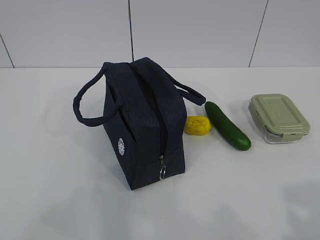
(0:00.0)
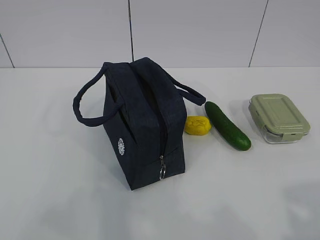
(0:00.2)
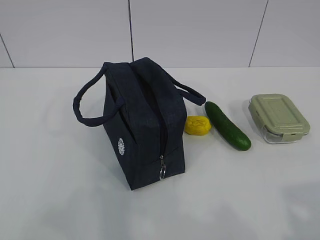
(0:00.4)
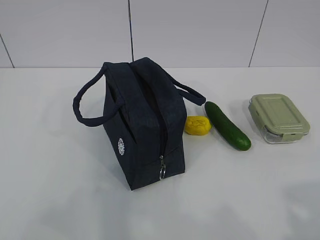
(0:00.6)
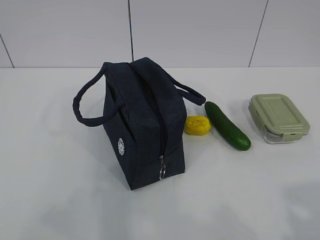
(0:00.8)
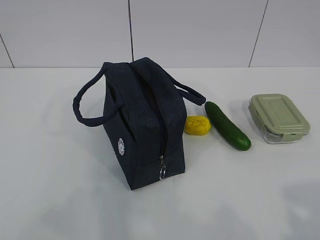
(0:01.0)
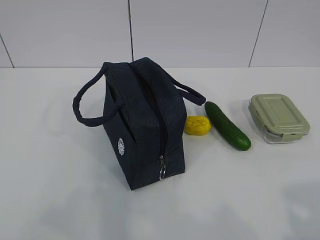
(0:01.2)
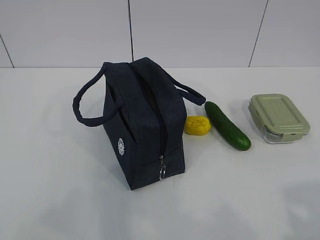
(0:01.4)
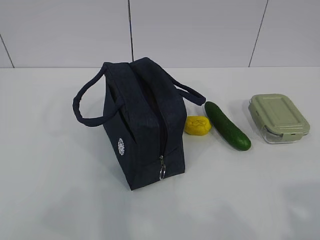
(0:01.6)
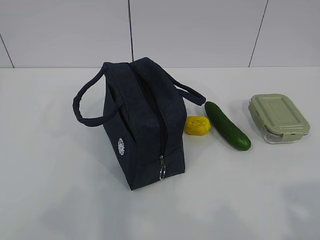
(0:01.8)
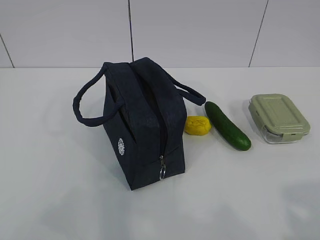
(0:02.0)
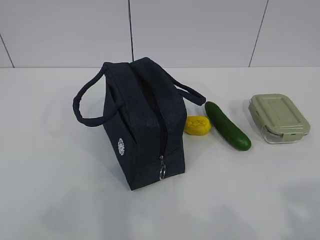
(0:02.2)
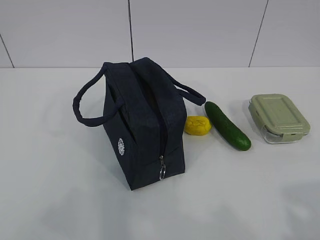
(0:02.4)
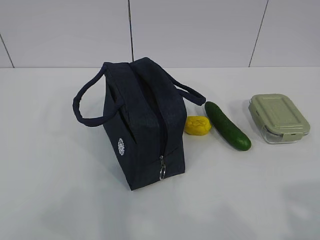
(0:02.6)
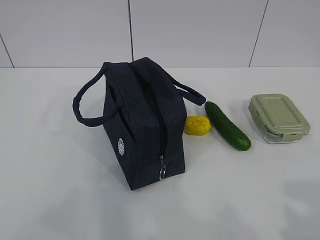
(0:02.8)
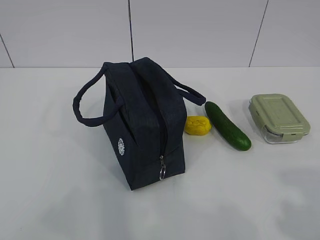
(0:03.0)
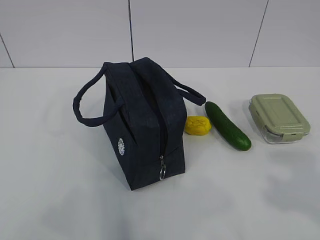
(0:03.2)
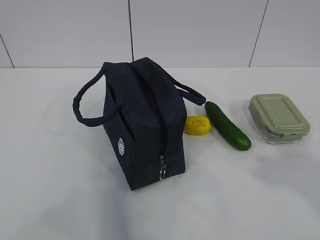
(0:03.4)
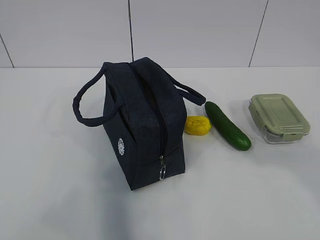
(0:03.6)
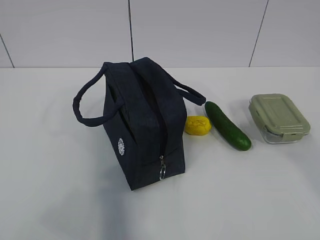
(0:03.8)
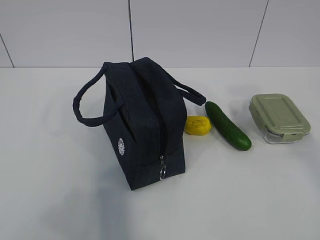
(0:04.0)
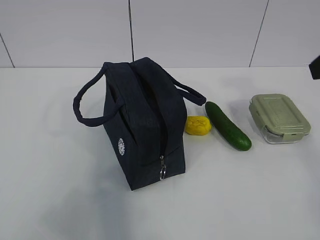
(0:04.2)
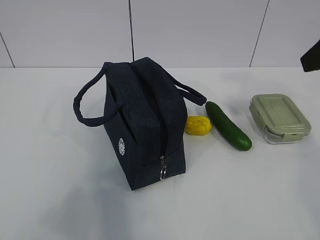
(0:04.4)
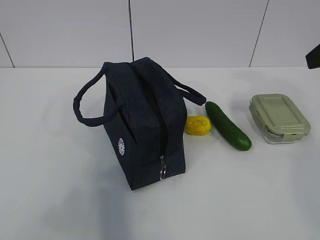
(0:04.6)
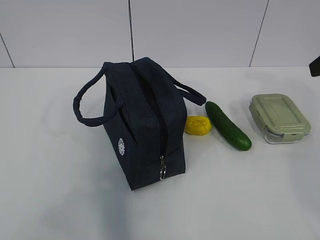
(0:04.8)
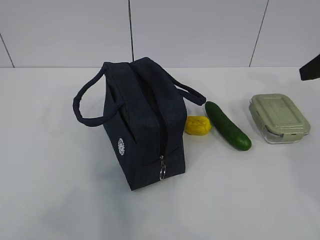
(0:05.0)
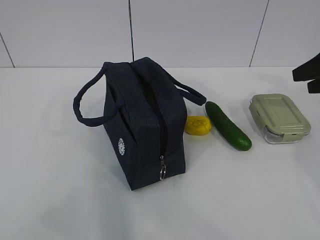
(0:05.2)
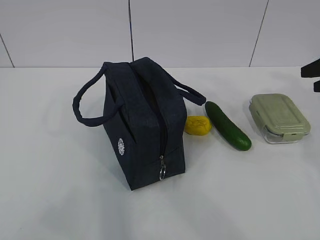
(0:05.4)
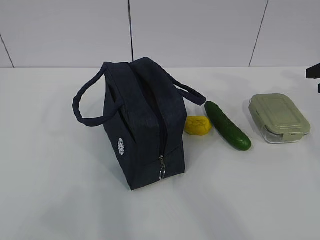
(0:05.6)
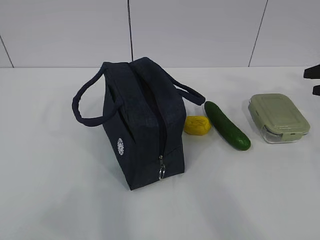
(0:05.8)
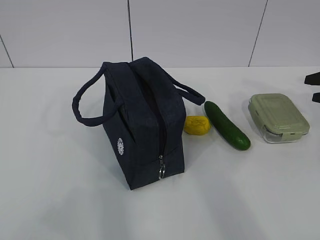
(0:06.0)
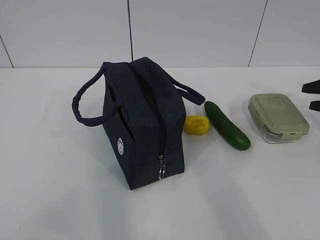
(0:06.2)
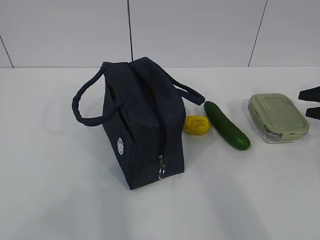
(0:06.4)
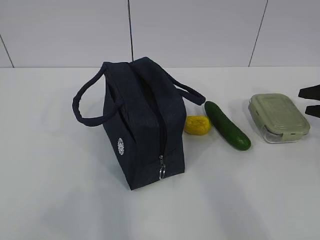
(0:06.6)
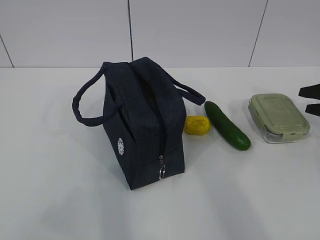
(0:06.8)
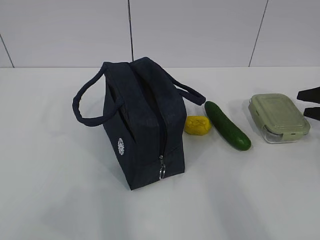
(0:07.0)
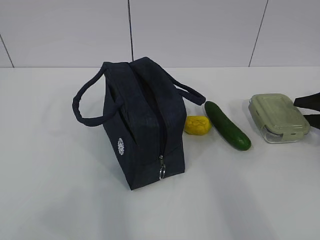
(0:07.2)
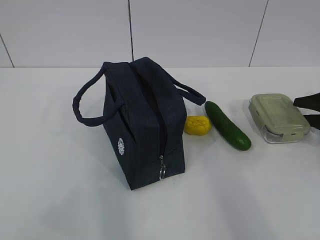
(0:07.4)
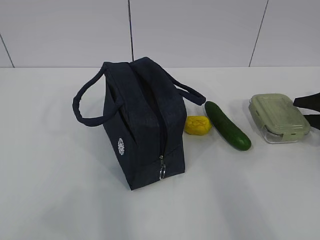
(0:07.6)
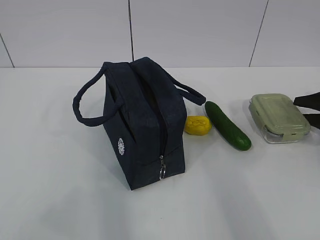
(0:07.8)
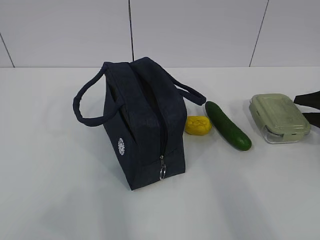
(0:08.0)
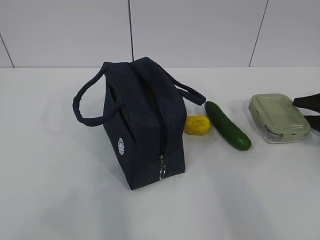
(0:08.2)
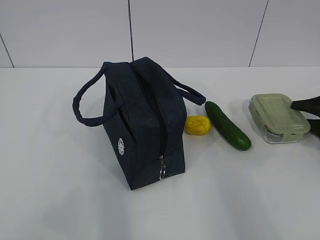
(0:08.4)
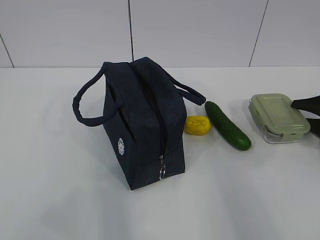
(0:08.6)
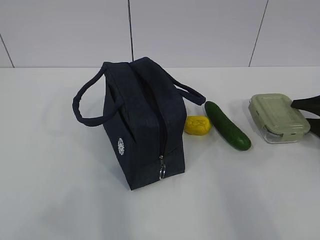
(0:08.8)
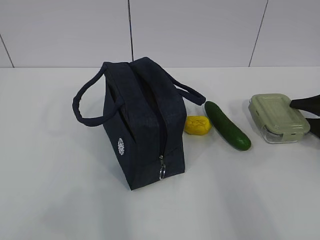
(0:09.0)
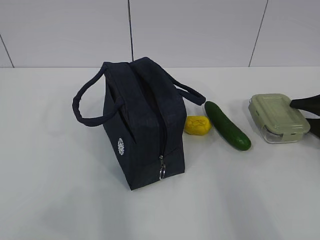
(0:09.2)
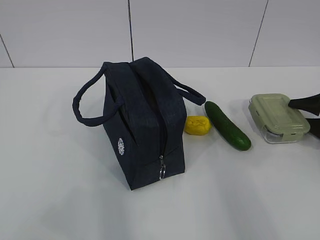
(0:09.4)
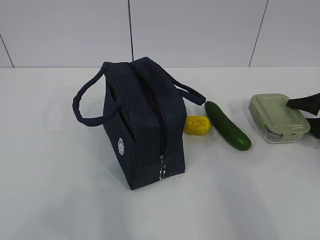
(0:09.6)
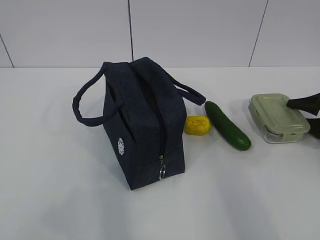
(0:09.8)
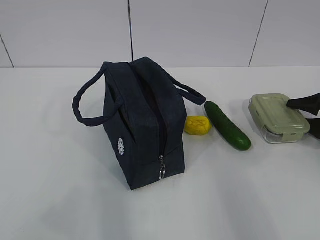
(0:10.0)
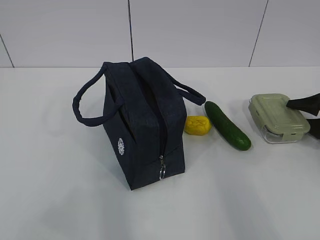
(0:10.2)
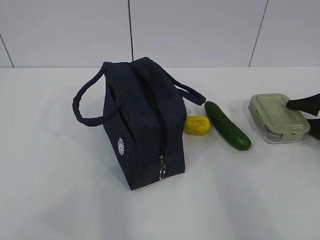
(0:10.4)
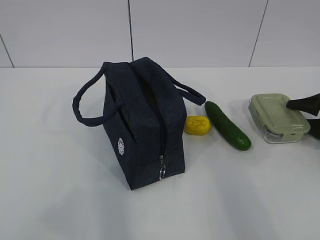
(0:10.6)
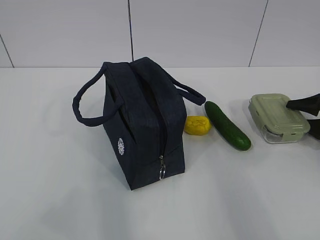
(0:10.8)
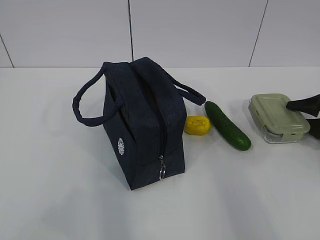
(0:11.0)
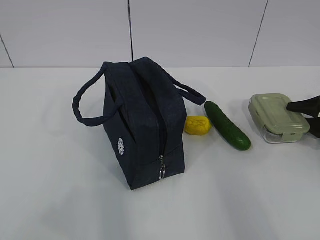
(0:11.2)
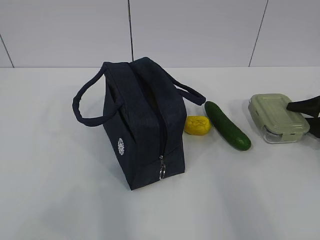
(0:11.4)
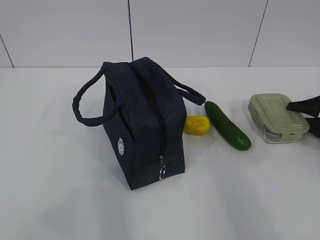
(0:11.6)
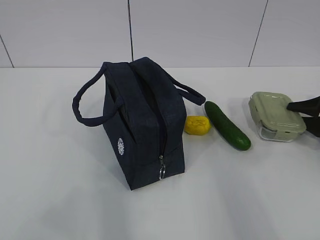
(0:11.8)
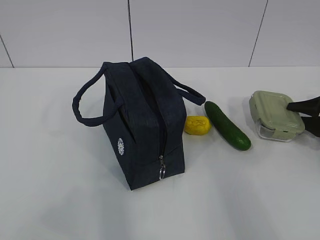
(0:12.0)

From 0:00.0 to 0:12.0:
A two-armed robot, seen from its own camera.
From 0:03.0 to 0:04.4: The right gripper heads forward and upward, covering roughly 25 cm.
From 0:04.4 to 0:06.0: The right gripper shifts approximately 30 cm downward, to the right and forward.
From 0:06.0 to 0:07.6: The right gripper heads downward, covering approximately 5 cm.
From 0:09.0 to 0:10.4: The two grippers keep their place.
From 0:10.4 to 0:12.0: Neither gripper changes place.

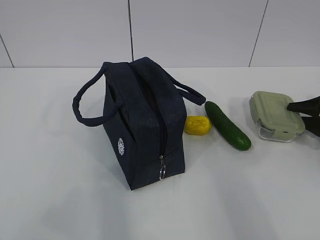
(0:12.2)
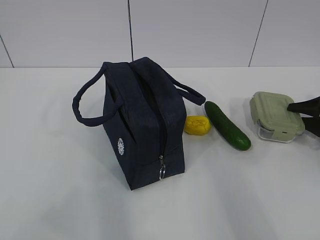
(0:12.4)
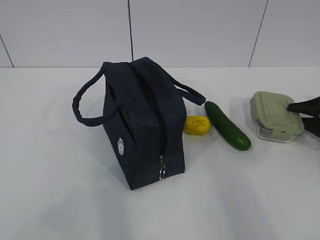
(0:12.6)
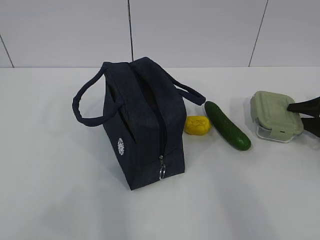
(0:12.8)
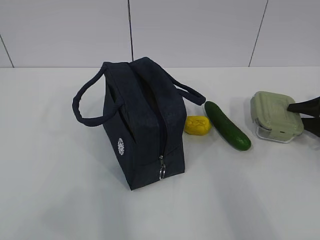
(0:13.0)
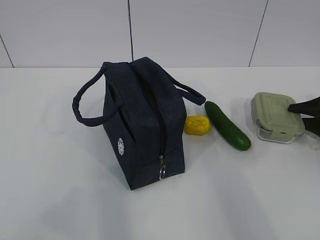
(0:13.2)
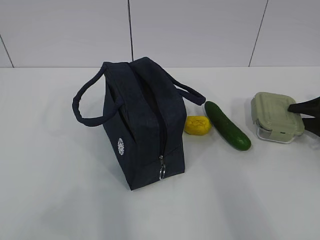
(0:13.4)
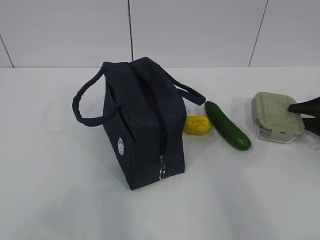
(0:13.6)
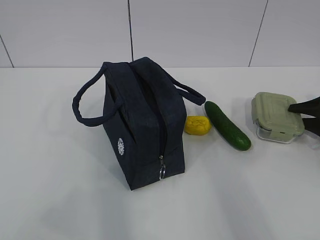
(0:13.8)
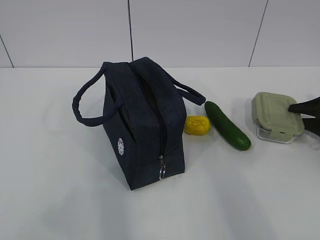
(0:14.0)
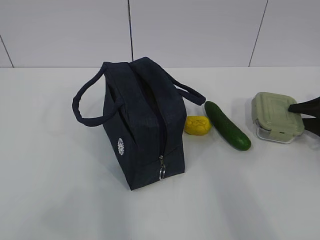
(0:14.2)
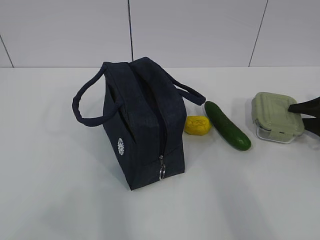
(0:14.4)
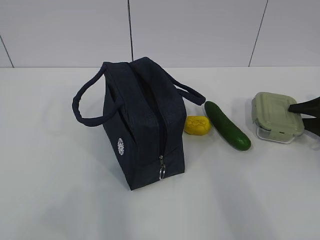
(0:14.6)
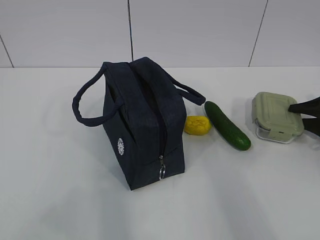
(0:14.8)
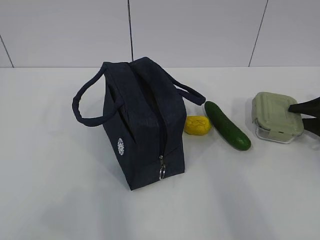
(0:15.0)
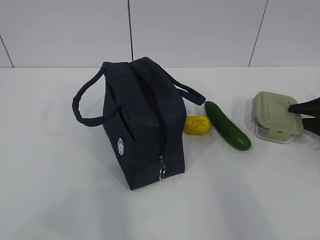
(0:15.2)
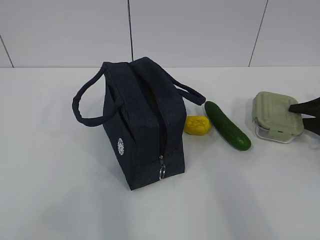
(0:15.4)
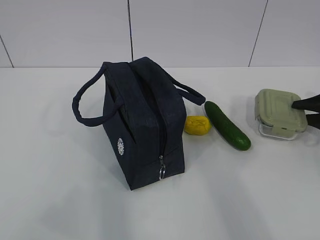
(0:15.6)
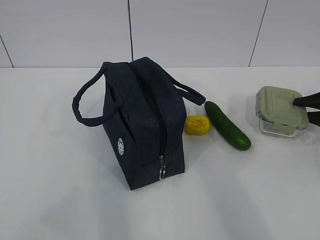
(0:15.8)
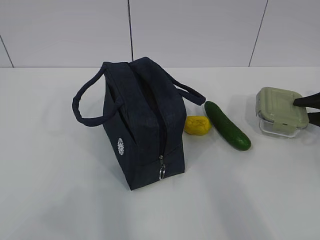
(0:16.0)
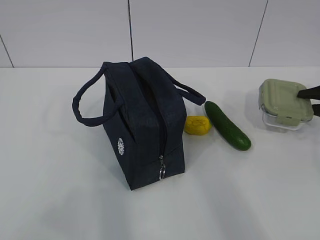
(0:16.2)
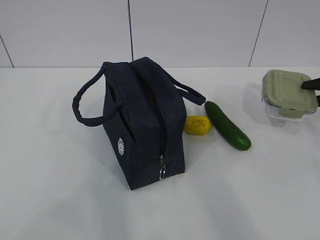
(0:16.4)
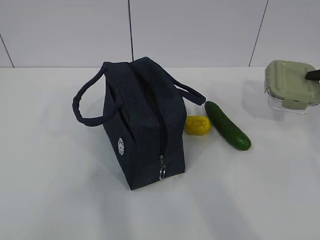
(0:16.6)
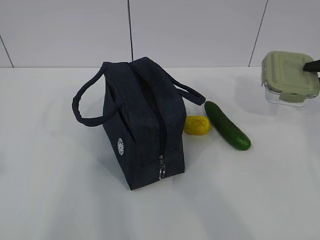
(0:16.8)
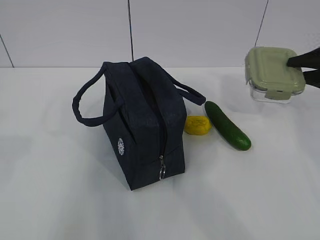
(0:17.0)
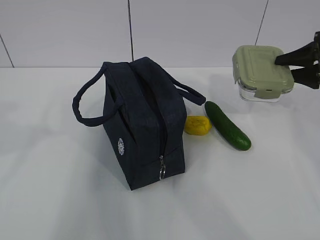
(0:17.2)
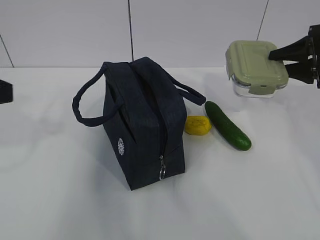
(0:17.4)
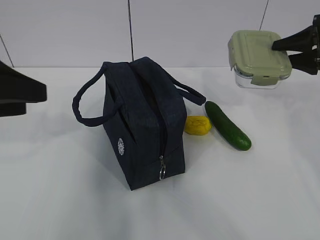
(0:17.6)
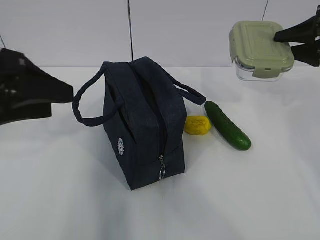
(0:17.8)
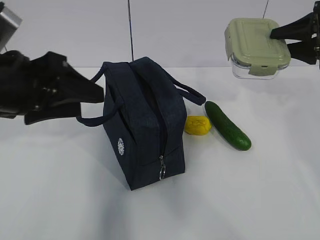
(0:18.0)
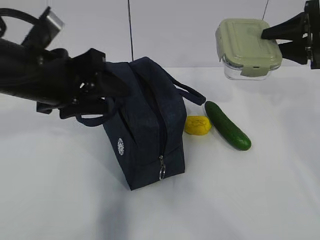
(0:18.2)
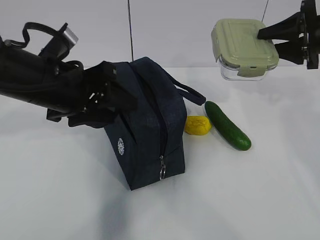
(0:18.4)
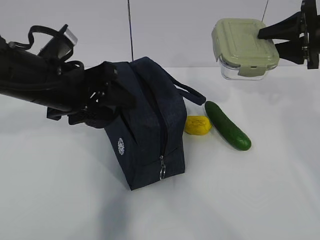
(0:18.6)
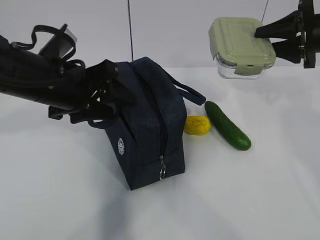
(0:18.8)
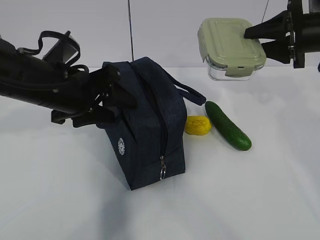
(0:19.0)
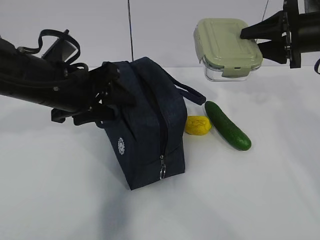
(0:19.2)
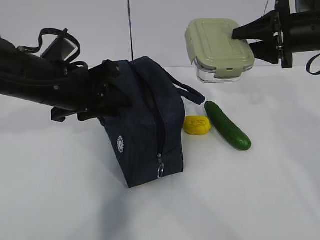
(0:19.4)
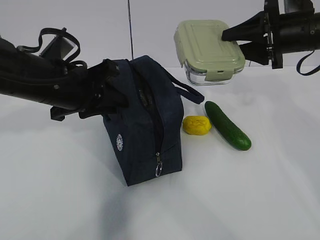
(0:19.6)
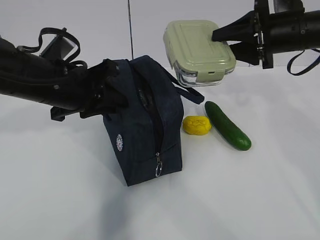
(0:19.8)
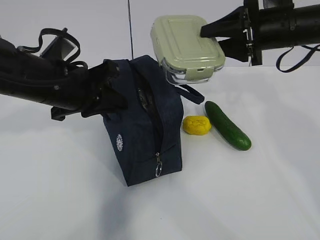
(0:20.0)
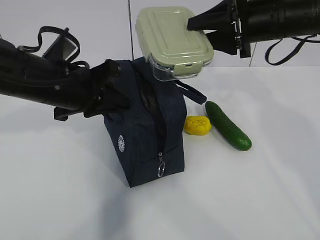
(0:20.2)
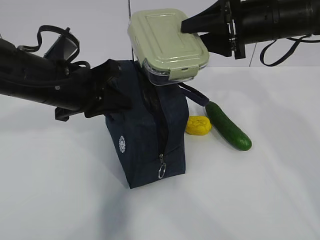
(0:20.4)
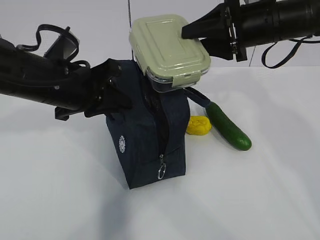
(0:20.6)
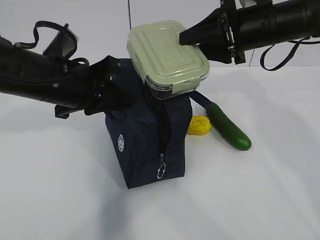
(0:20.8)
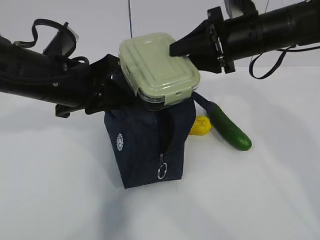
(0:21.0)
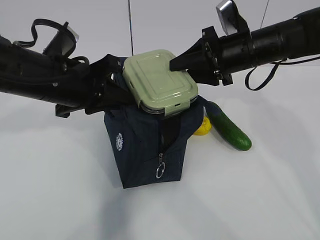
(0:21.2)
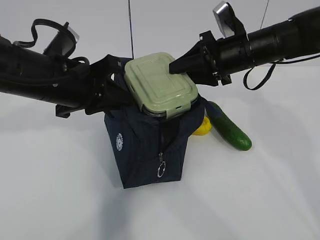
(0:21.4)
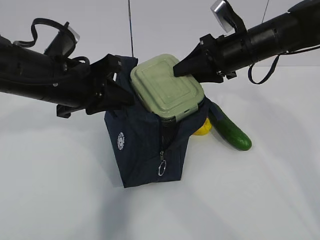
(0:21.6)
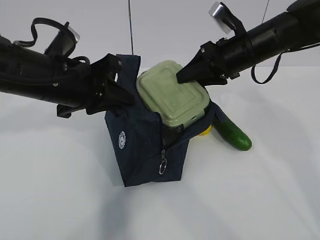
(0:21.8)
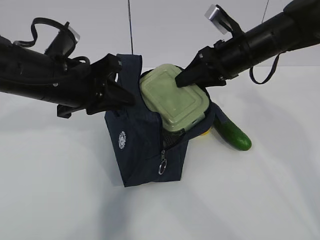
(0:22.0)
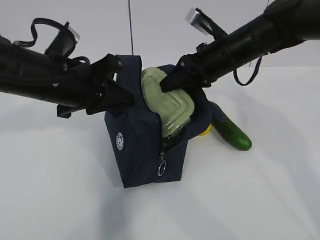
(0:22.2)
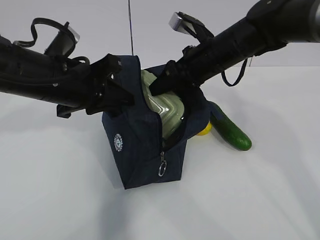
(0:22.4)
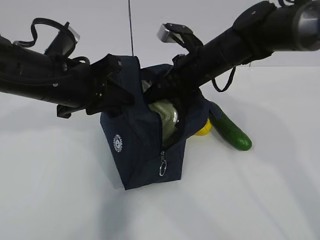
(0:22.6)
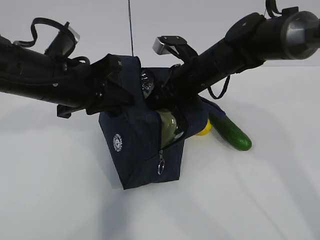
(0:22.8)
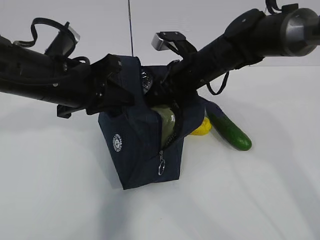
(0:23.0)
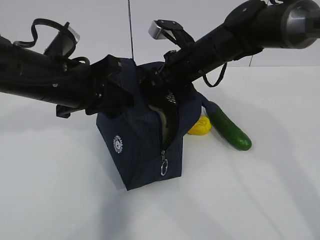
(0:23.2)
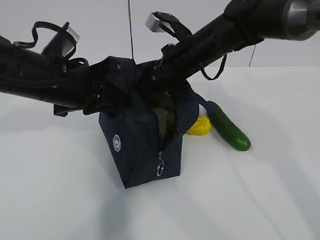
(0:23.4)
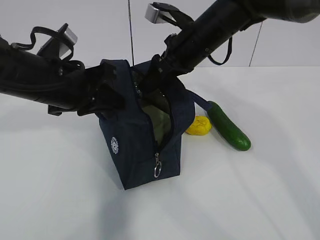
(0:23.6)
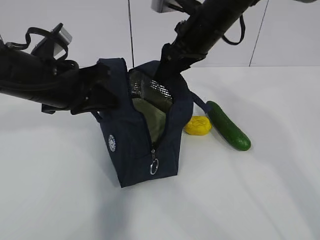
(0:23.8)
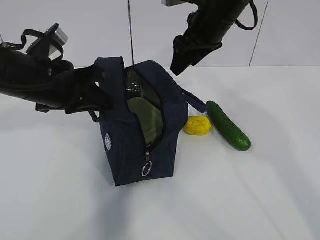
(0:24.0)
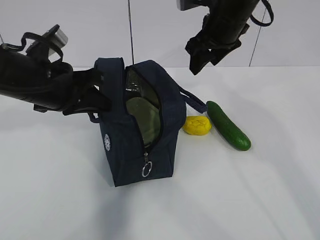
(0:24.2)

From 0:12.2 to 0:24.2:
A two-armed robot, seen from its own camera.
Step, from 0:12.8 to 0:17.4: Grab the lunch bag with your left hand.
Step, from 0:17.6 to 0:19.4: Place it into the bag with your right hand.
Step, from 0:19.6 to 0:21.8: Grab the cucumber with your right hand.
From 0:12.2 to 0:15.2: Neither gripper changes place.
From 0:15.2 to 0:16.6: The right gripper is displaced upward by roughly 10 cm.
From 0:16.6 to 0:18.2: The right gripper heads to the left and upward, covering roughly 15 cm. Meanwhile the left gripper goes approximately 30 cm forward and to the right.
From 0:18.2 to 0:19.8: The left gripper changes place by roughly 5 cm, and closes. Meanwhile the right gripper shifts roughly 10 cm to the left.
From 0:19.8 to 0:21.2: The right gripper is displaced to the left by some 5 cm.
From 0:21.2 to 0:22.6: The right gripper goes some 5 cm to the left.
From 0:22.6 to 0:24.2: The right gripper heads upward, covering approximately 5 cm.
